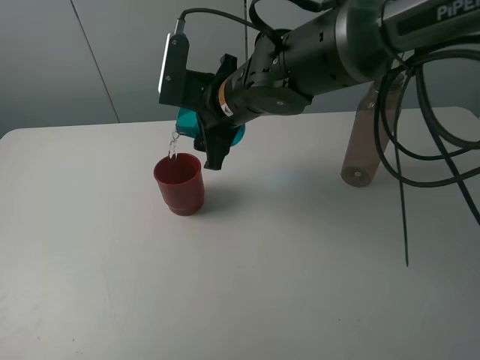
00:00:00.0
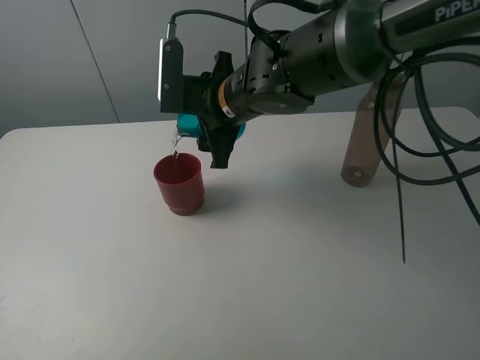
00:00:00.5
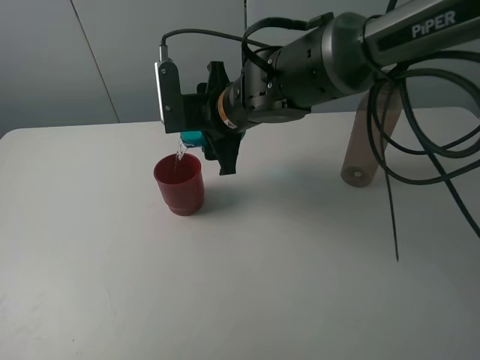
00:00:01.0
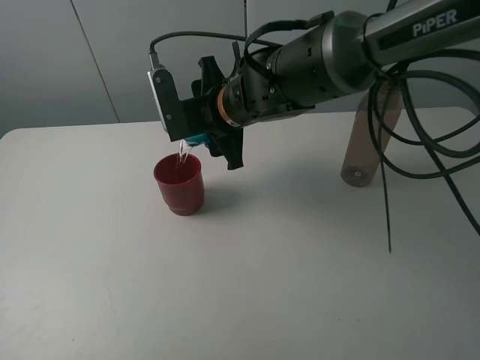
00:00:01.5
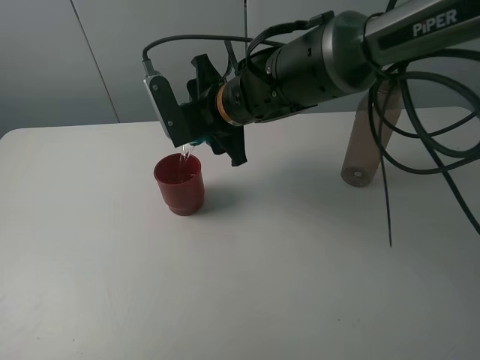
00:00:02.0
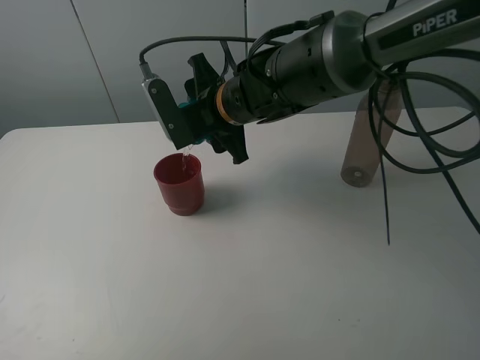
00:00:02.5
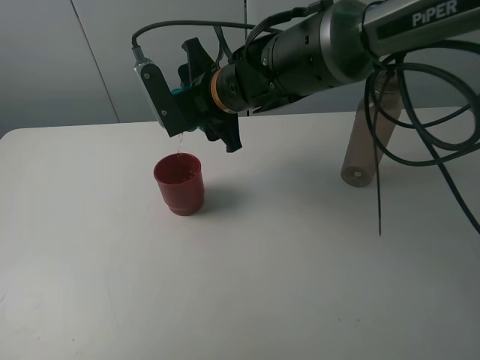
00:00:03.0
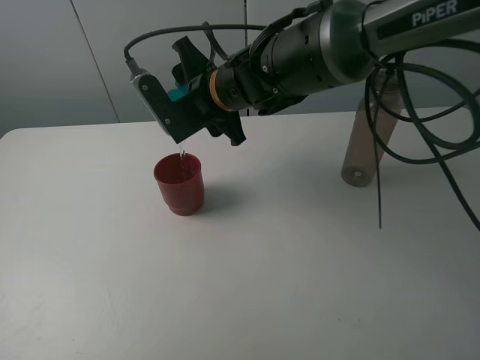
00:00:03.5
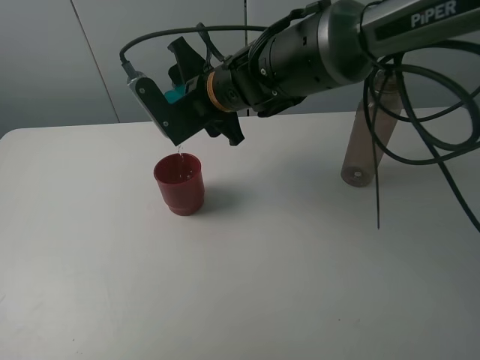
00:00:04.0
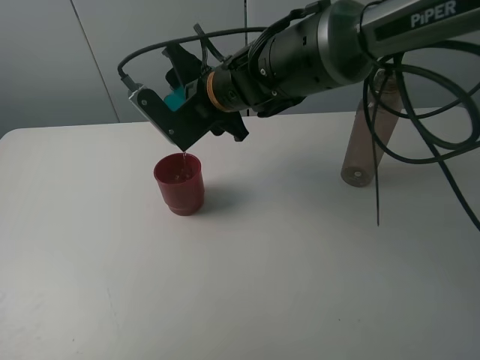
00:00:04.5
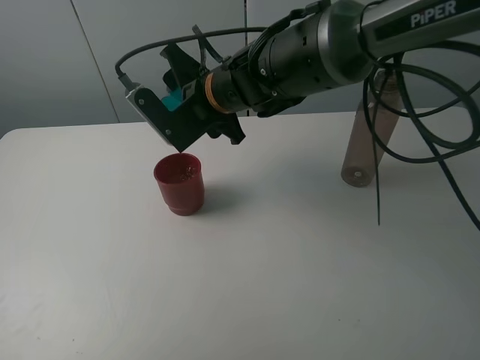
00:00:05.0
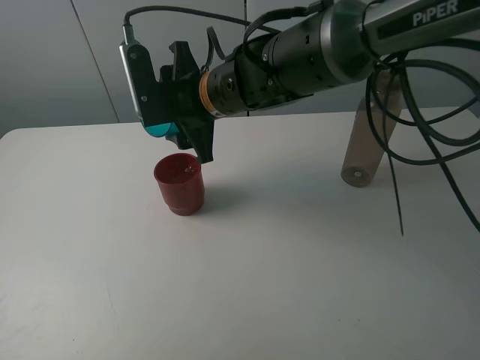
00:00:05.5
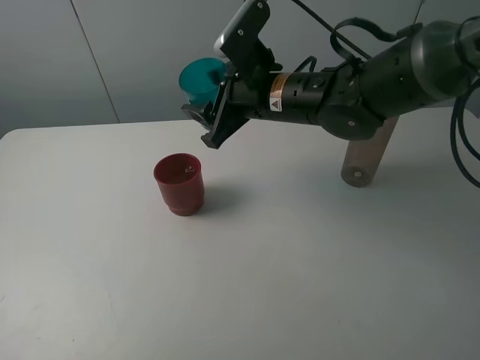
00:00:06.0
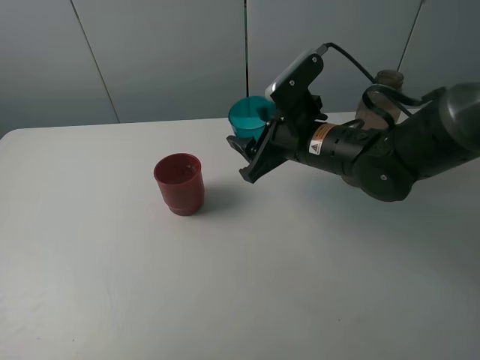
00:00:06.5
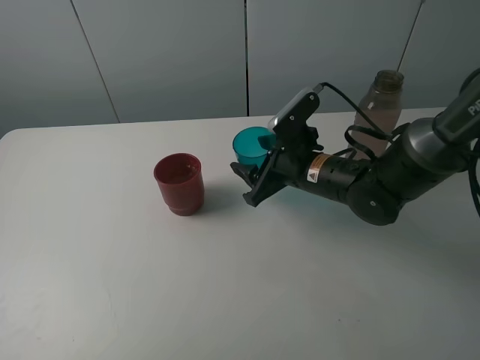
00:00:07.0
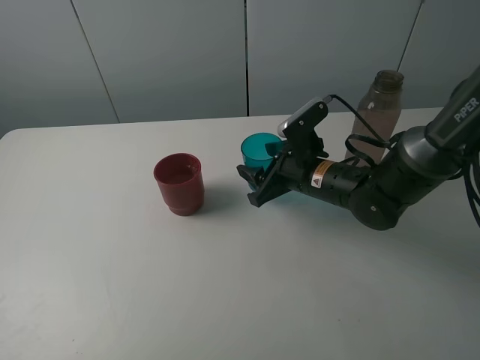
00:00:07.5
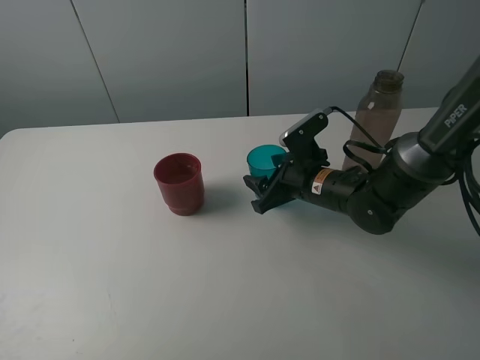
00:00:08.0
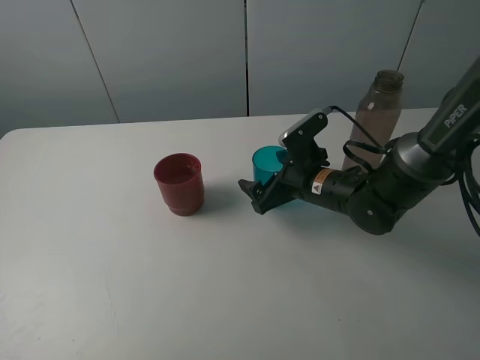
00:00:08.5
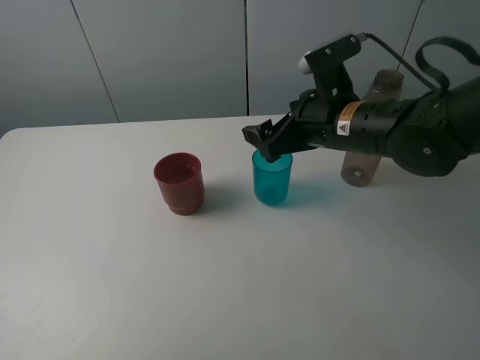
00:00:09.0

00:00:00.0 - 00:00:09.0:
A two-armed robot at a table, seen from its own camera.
Task of the whole recording: pick up the bottle and pour water into the cup, then pick up the cup containing water and pour it into another cup.
Step, 00:00:00.0 - 00:00:05.0: Pour water from blue cup to red cup with the right gripper.
Step, 00:00:05.5 - 00:00:08.5: Place the blue cup with the right gripper.
00:00:04.5 - 00:00:07.0: The right gripper heads to the right and downward, covering roughly 15 cm.
00:00:07.0 - 00:00:09.0: The right gripper shifts roughly 10 cm upward, and opens.

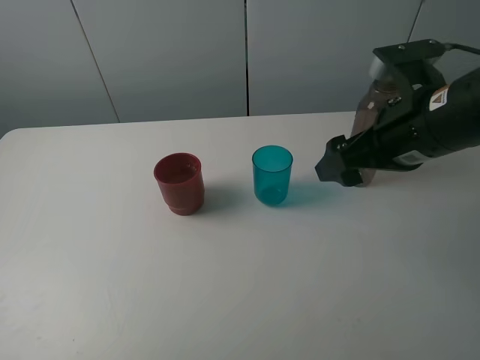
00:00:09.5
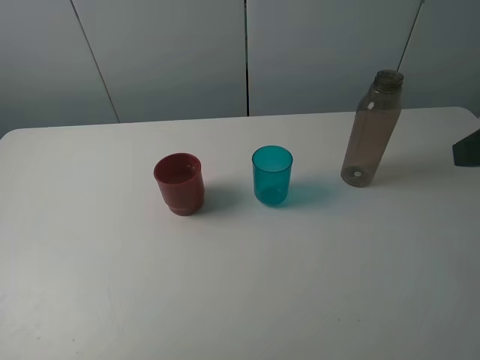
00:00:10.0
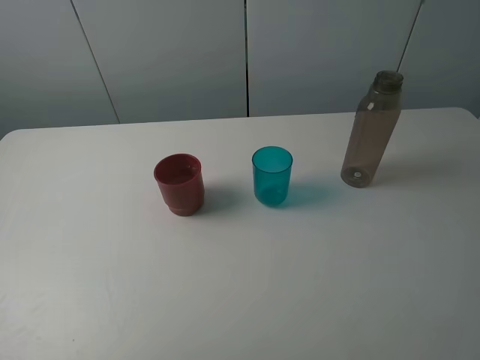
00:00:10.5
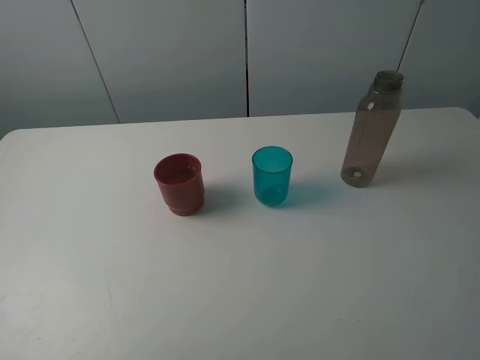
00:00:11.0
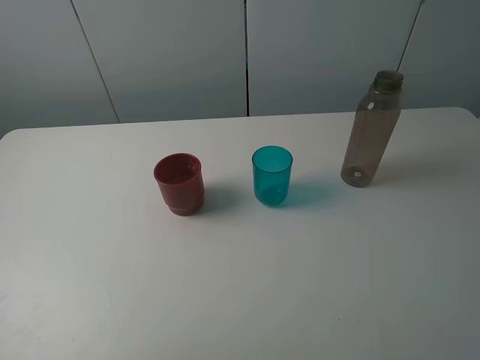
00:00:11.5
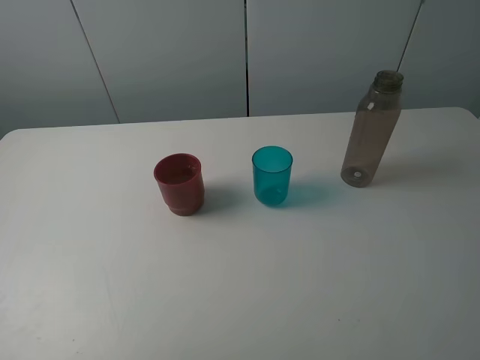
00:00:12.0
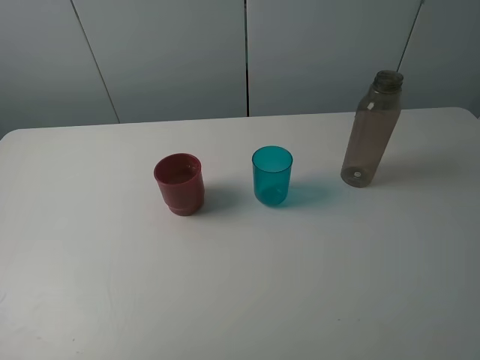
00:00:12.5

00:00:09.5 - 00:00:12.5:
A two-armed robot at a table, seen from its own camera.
Task of the whole recording: pick up the bottle and pour water into the cup, then pick up the cup containing water and pour it into another cup.
00:00:09.5 - 00:00:11.0: The right gripper moves backward and to the right, roughly 25 cm.
00:00:11.0 - 00:00:12.5: Neither gripper changes place.
